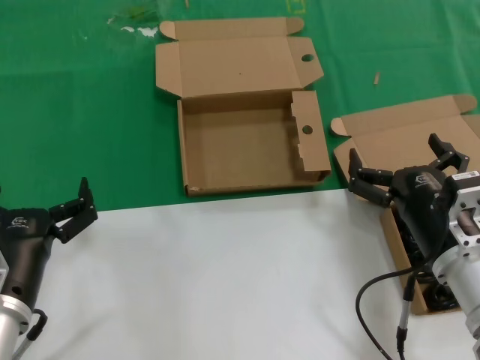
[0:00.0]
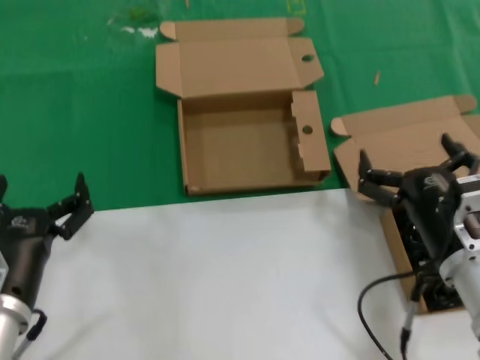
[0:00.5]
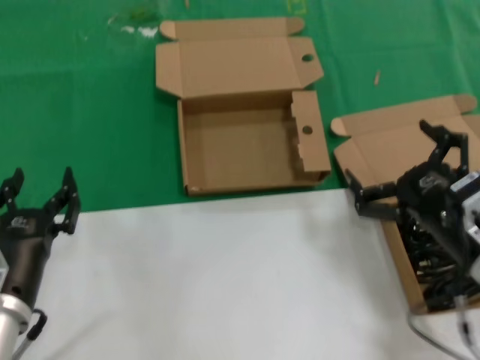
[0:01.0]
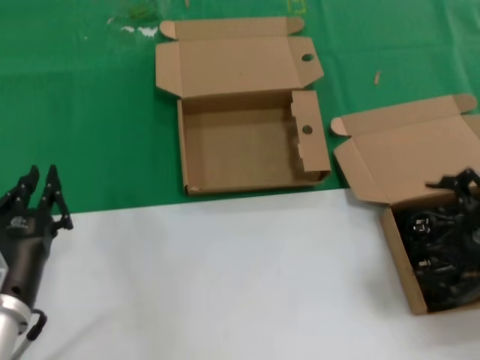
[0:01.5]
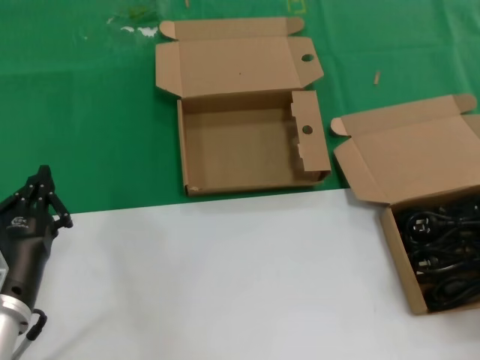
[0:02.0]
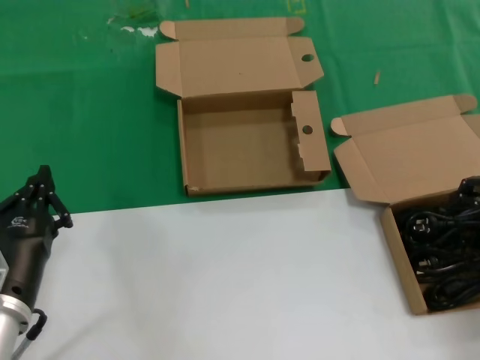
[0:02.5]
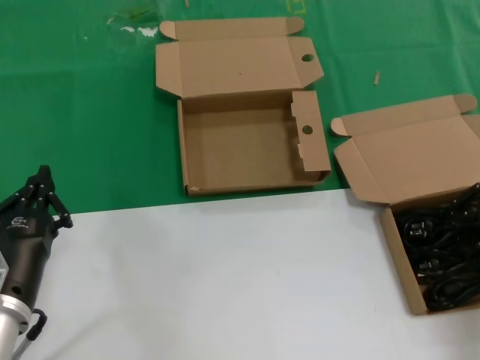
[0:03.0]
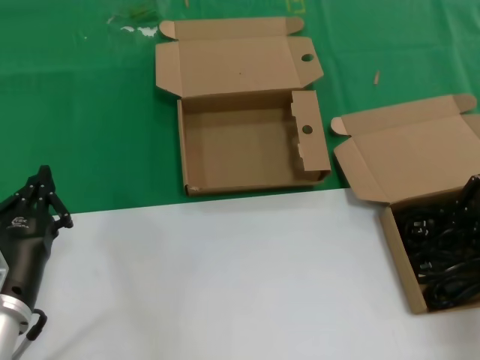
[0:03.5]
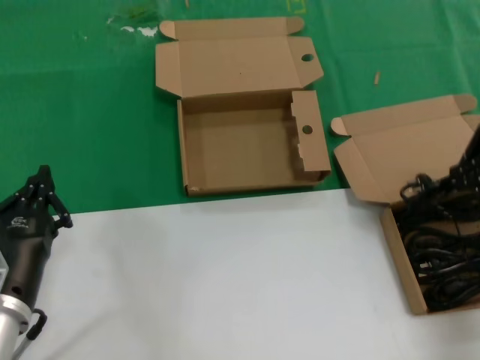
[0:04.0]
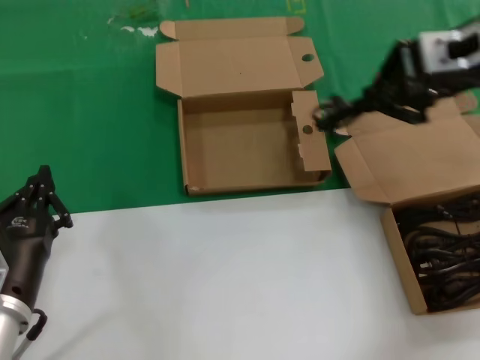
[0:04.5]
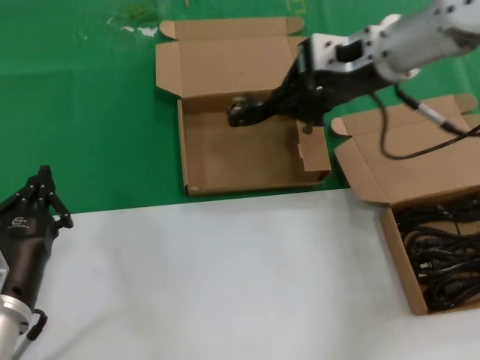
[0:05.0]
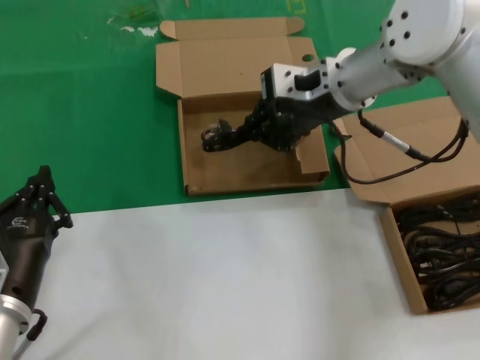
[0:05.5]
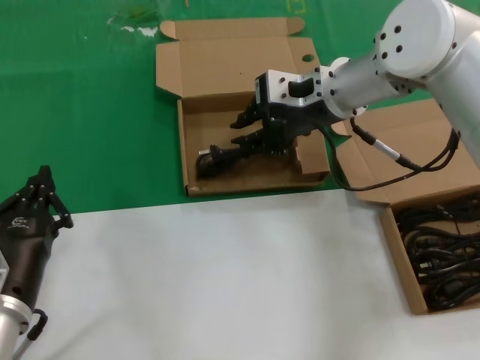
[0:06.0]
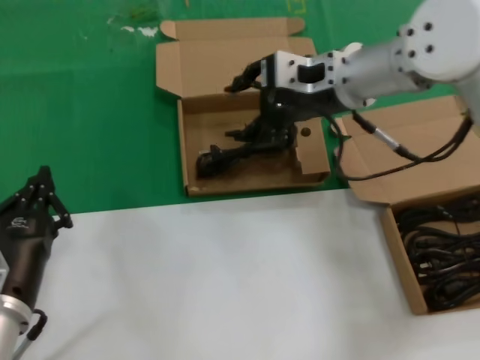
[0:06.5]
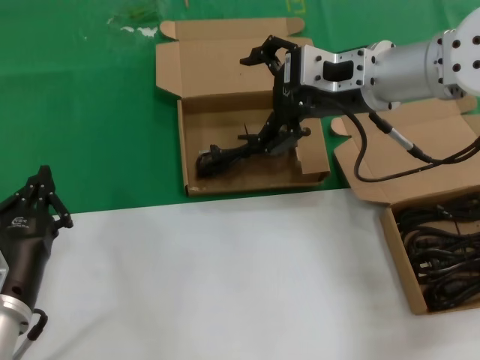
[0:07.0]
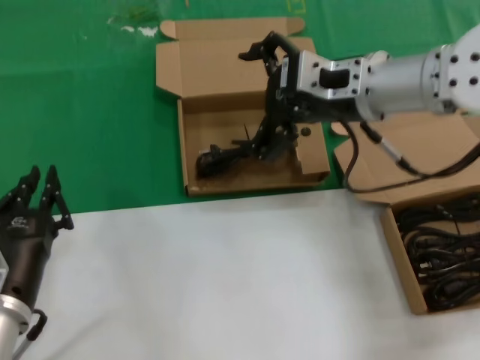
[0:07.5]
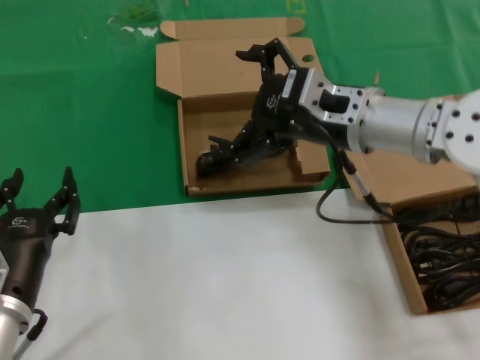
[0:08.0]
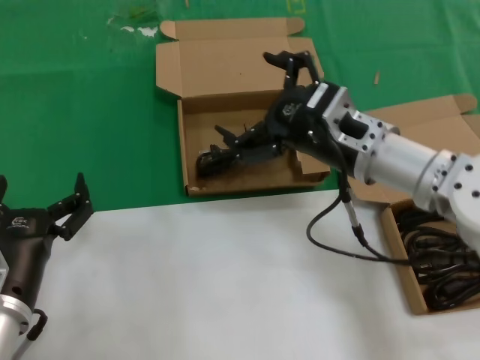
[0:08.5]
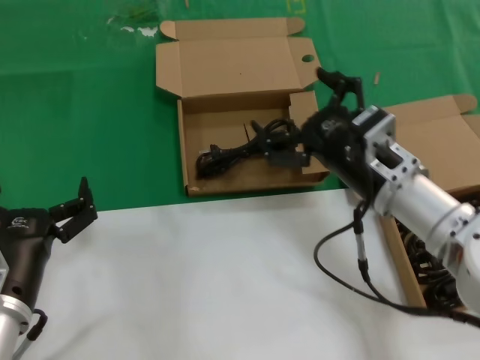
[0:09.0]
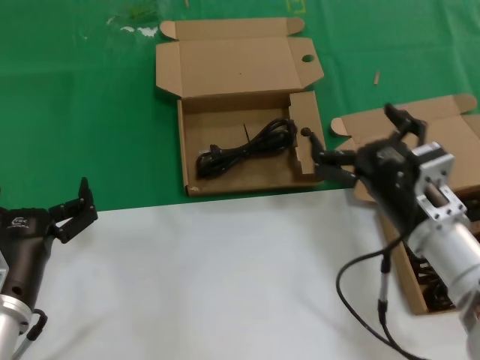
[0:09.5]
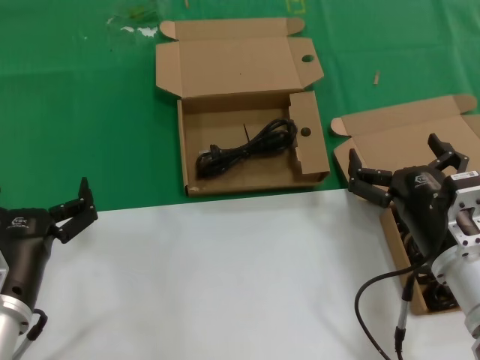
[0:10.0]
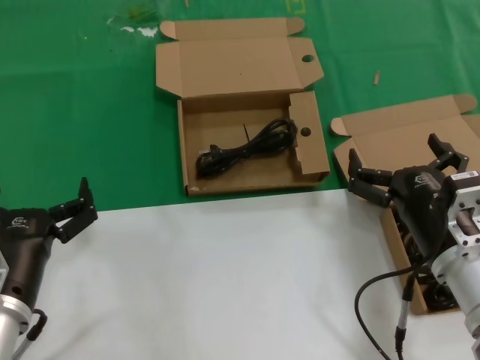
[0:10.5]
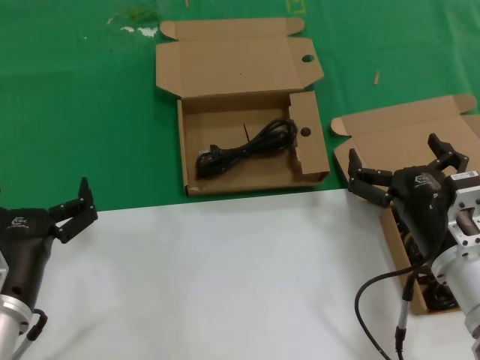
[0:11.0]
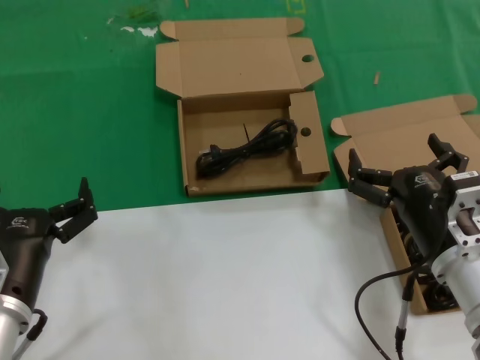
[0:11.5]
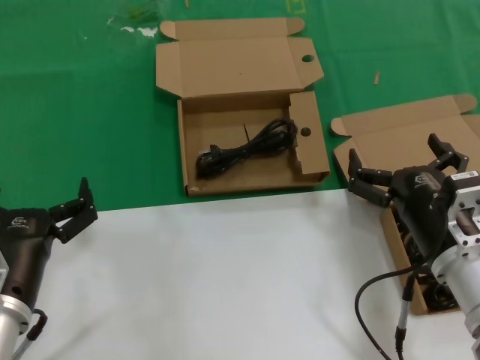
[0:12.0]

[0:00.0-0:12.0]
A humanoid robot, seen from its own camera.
Task of the whole recording: take the parts from the box containing them and put them into an empty box.
Step, 0:00.0 to 0:03.0: Grasp the data cable.
Step, 0:03.5 to 0:06.0: Place the data cable in the another box.
0:00.0 to 0:02.0: The right hand goes approximately 25 cm to the right and upward.
0:02.0 to 0:04.0: The right hand heads forward and upward, covering about 10 cm.
0:04.0 to 0:06.0: The right hand shifts about 25 cm to the left and forward.
0:06.0 to 0:08.0: The right hand goes about 10 cm backward.
0:08.0 to 0:10.0: The right hand travels downward and backward by approximately 20 cm.
0:10.0 to 0:12.0: Neither hand changes place.

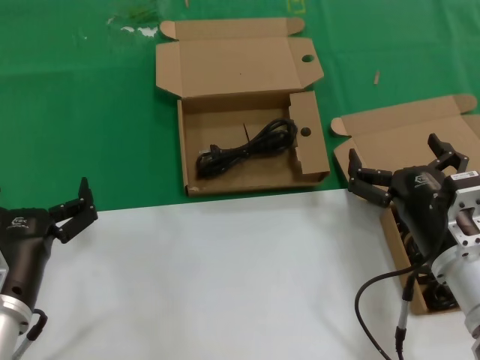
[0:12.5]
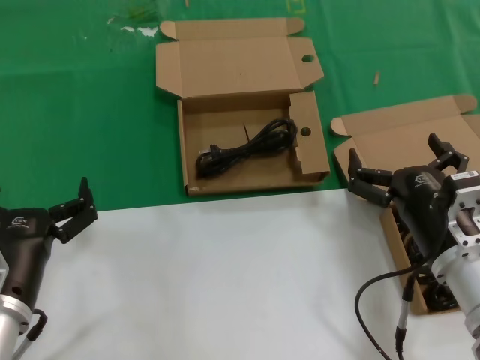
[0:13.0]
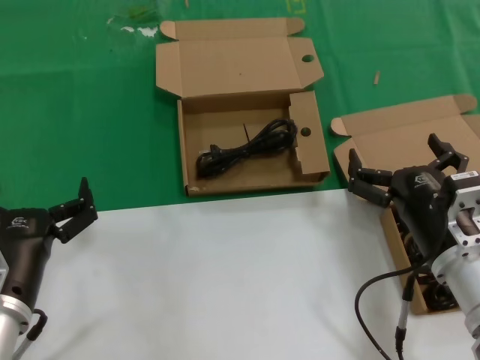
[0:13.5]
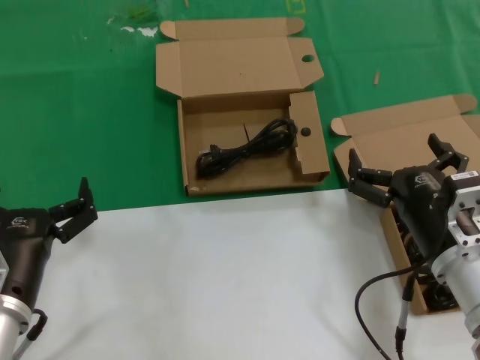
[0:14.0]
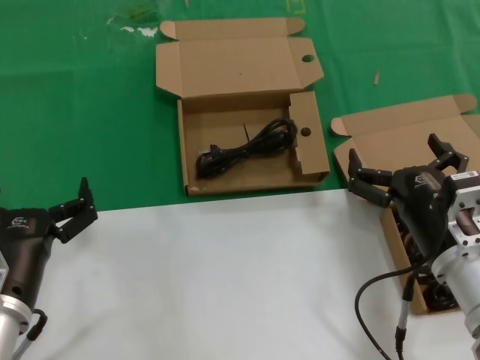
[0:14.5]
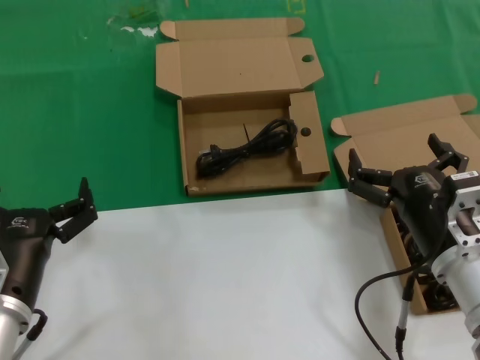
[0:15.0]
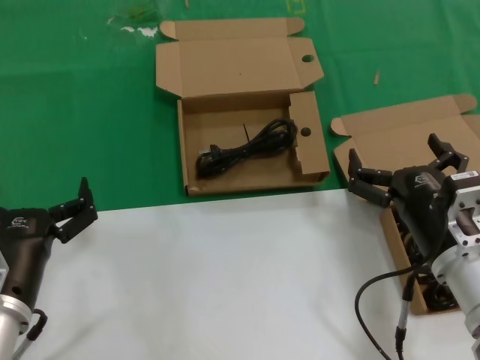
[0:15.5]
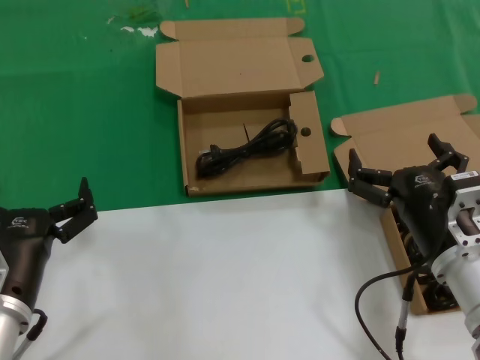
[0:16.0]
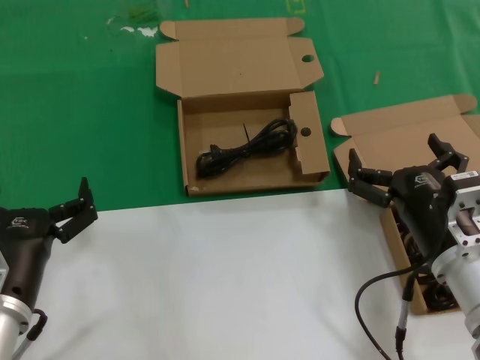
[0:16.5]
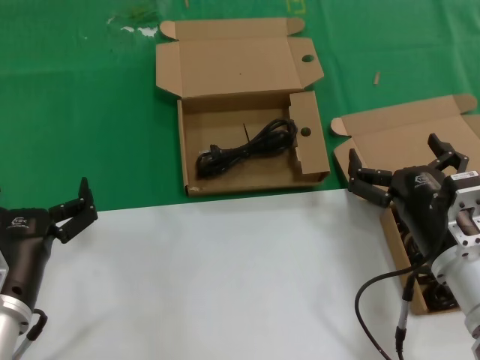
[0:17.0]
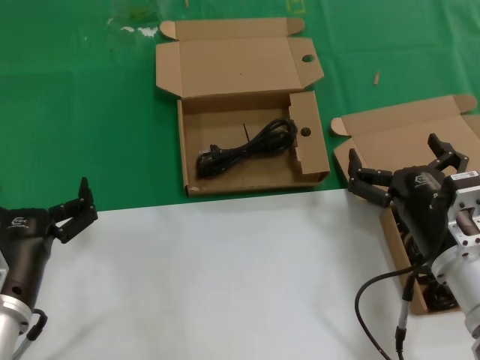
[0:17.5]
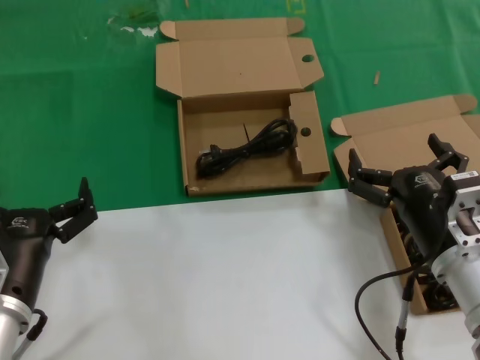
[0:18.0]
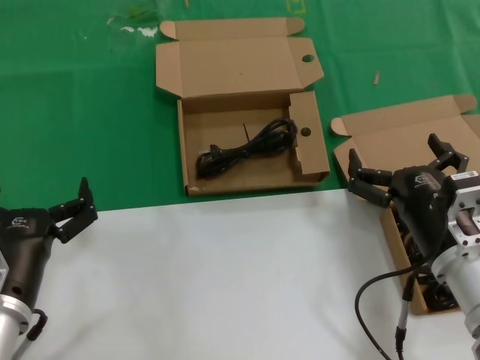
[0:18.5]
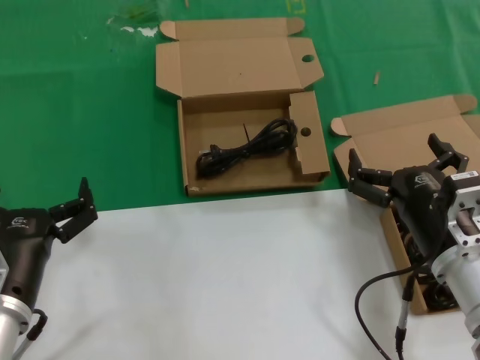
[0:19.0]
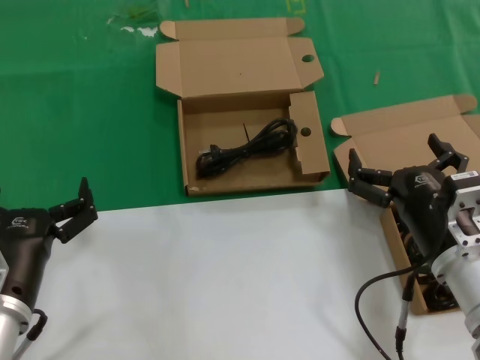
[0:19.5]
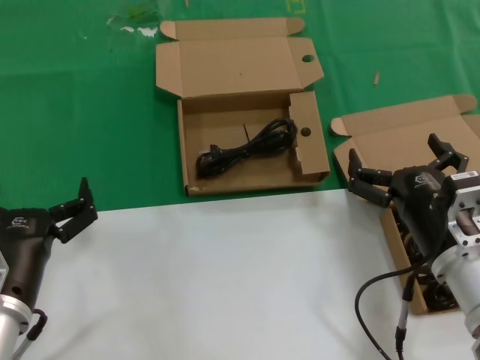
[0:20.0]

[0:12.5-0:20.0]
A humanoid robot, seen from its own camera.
Task of the whole recording: take the parts from the box containing them and put them into an empty box.
0:12.5 to 0:20.0: Neither hand changes place.

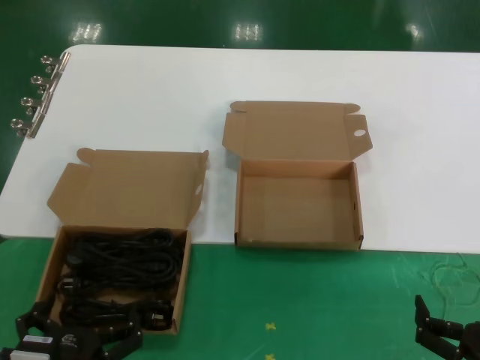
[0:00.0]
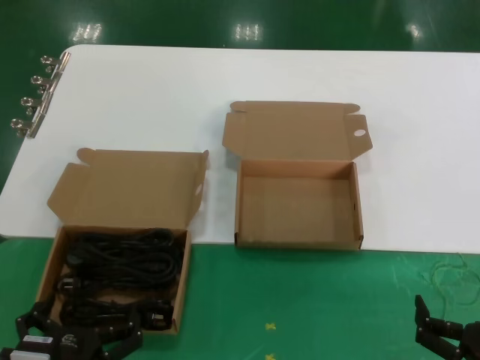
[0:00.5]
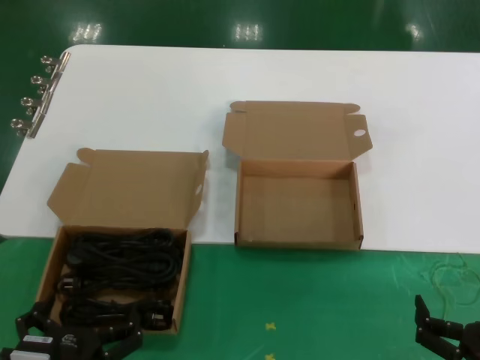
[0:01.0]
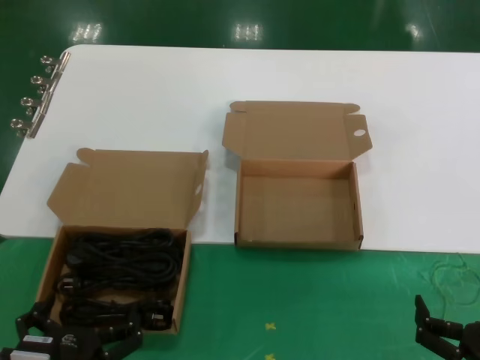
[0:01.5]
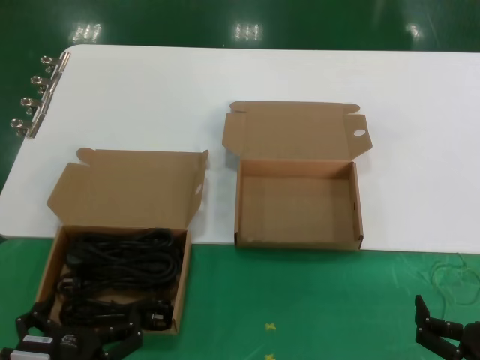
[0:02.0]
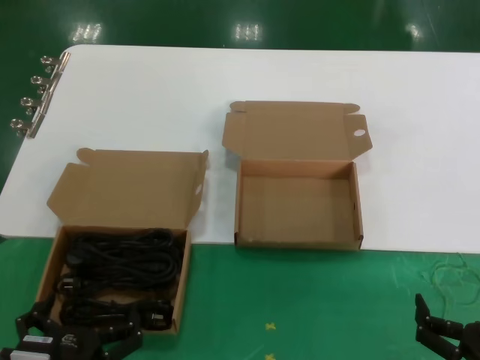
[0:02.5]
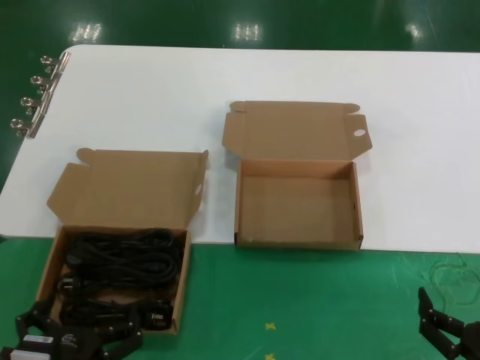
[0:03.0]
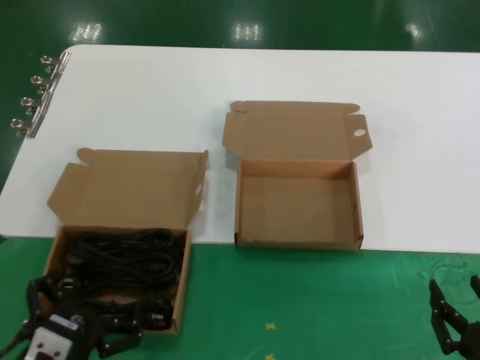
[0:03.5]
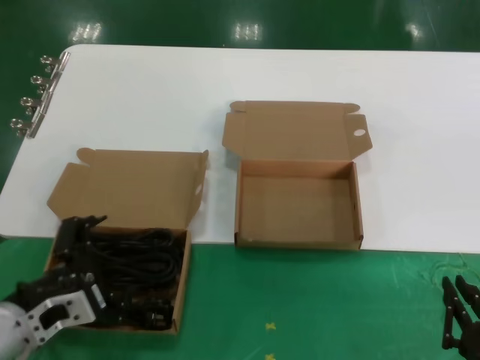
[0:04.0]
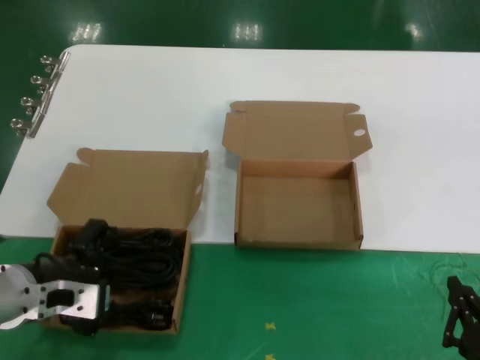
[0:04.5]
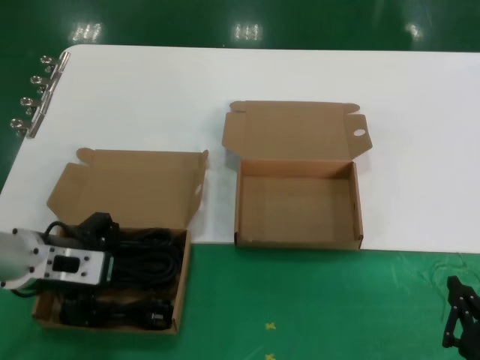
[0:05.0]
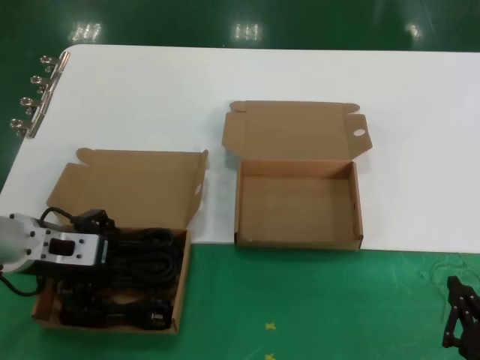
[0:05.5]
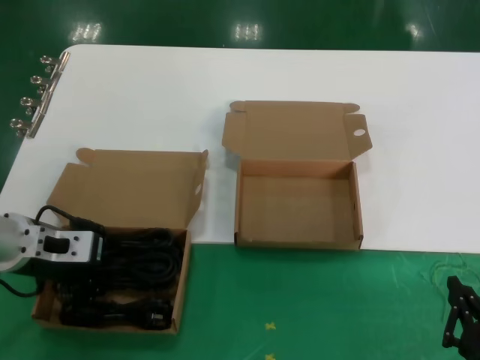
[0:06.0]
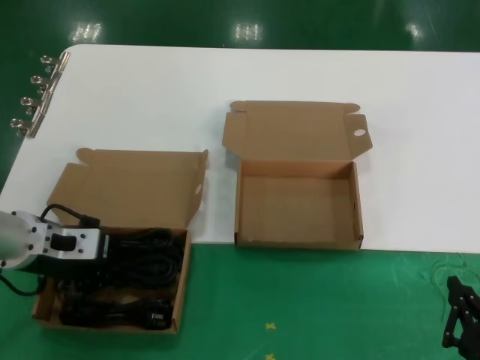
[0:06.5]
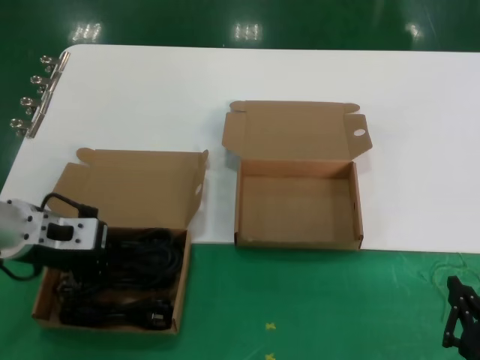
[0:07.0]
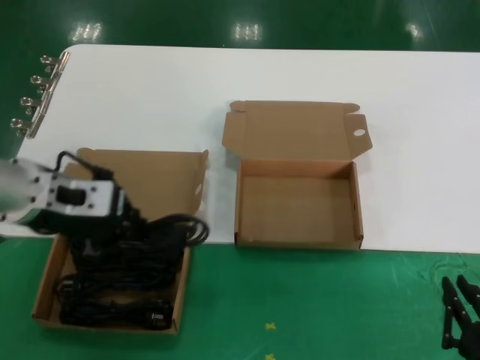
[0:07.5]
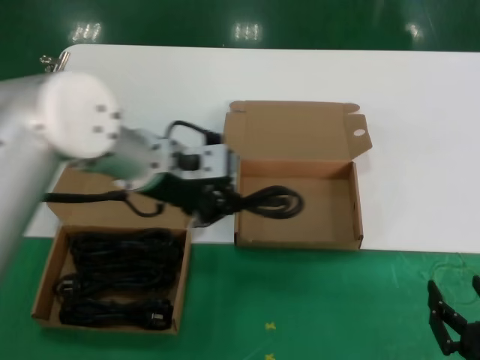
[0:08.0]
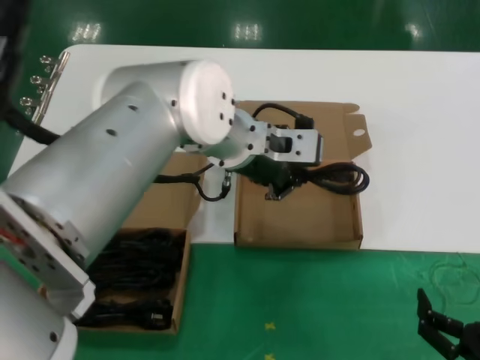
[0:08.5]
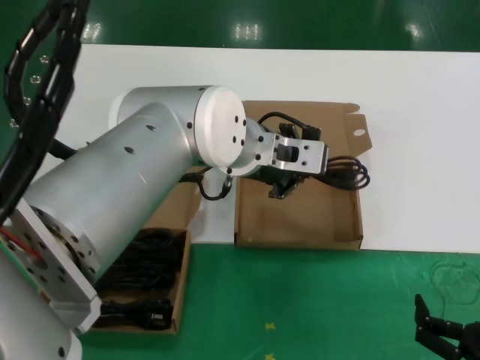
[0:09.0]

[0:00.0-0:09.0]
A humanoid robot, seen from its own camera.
Task of the whole recording: take the parts from the box containing them and put them into an empty box.
Step, 0:00.0 to 0:06.5: Grasp the data cable.
0:00.0 to 0:02.0: Both hands stay put.
0:02.0 to 0:04.5: The left hand moves upward, forward and to the left, some 20 cm.
0:04.5 to 0:07.0: The left hand travels forward and upward by about 10 cm.
0:07.0 to 0:09.0: The left hand travels to the right by some 25 cm.
